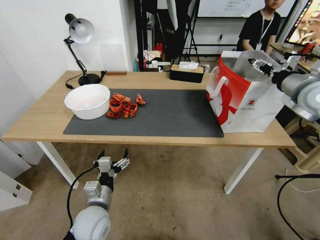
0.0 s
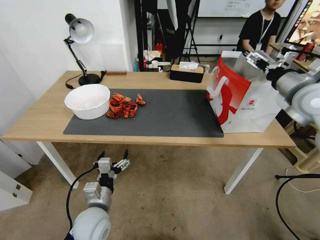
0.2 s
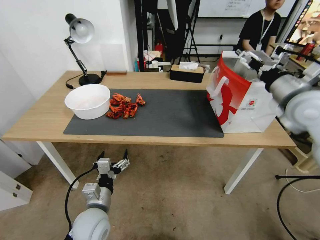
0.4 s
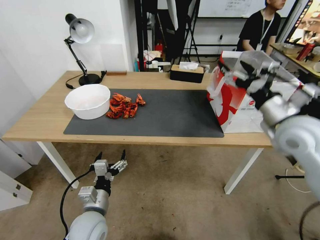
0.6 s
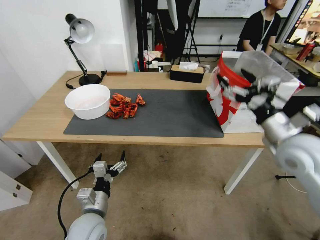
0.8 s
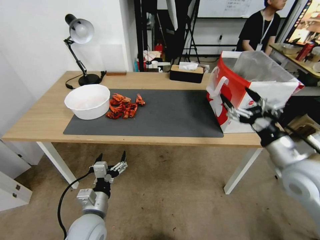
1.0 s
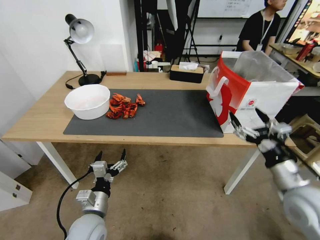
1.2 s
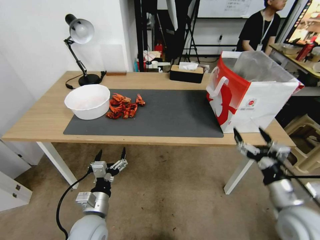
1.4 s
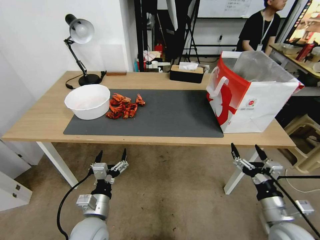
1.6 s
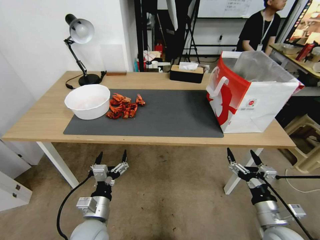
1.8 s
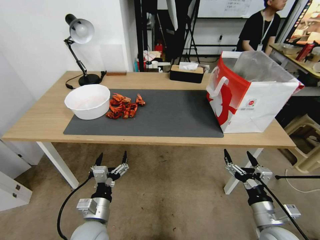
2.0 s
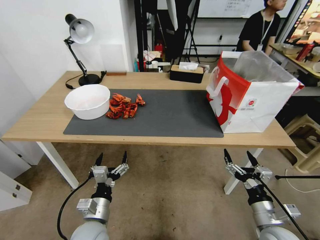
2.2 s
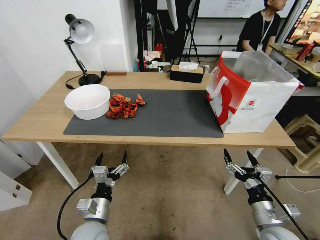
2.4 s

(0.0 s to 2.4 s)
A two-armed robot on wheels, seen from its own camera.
Task of the whole recording: Close the takeout container lid, then place the container into the takeout bag.
0.0 s - 1.2 s: The right gripper is displaced backward and downward by roughly 25 cm.
1.2 s - 2.4 s: The right gripper shifts about 15 cm downward and backward.

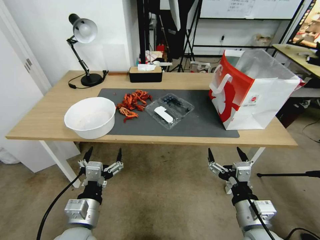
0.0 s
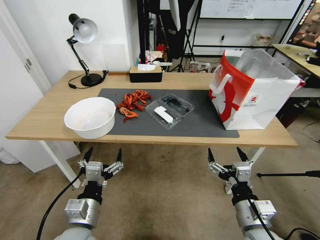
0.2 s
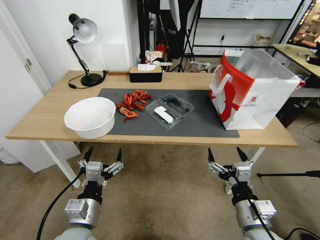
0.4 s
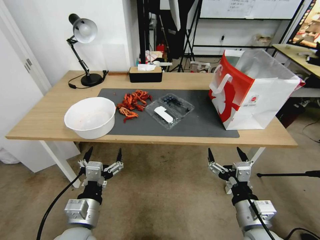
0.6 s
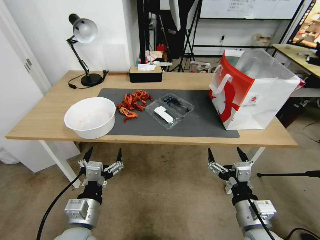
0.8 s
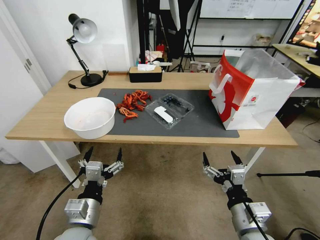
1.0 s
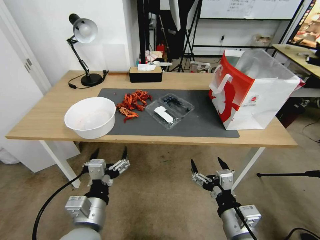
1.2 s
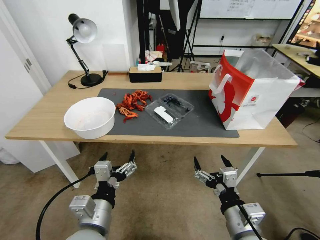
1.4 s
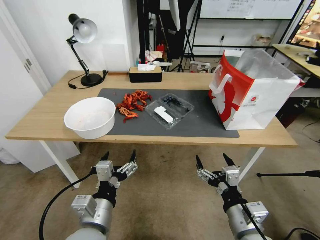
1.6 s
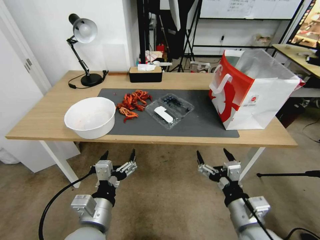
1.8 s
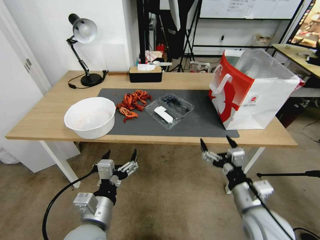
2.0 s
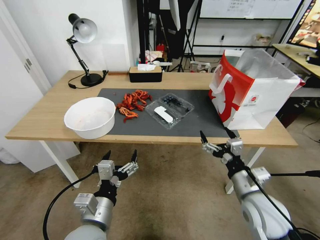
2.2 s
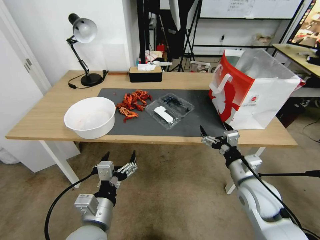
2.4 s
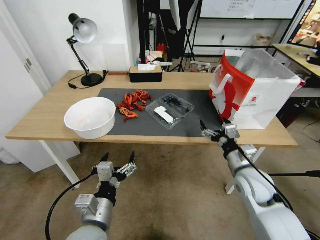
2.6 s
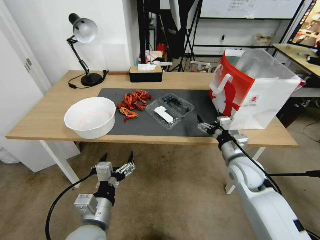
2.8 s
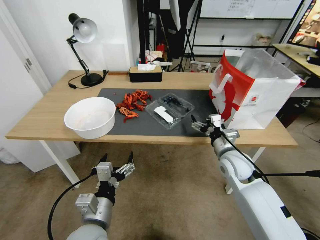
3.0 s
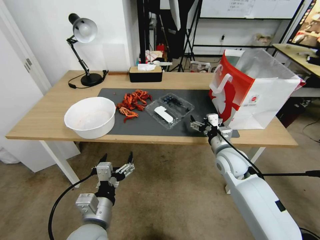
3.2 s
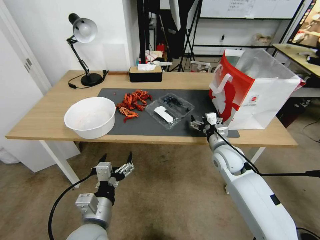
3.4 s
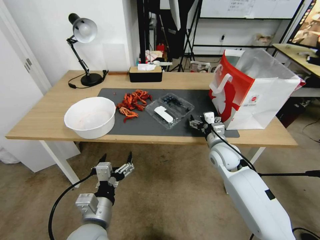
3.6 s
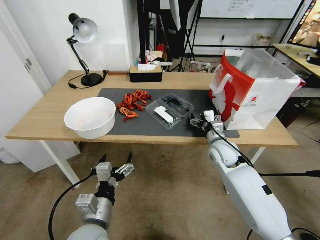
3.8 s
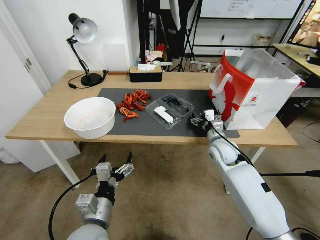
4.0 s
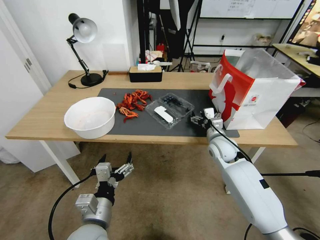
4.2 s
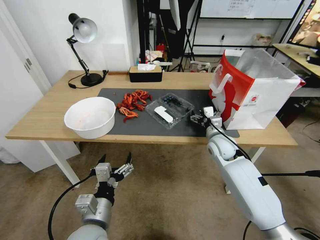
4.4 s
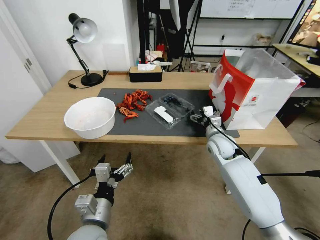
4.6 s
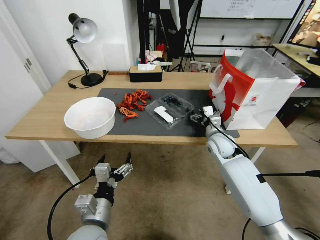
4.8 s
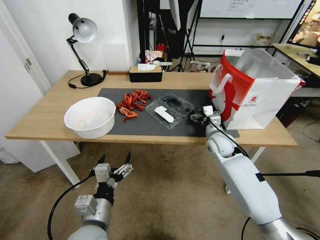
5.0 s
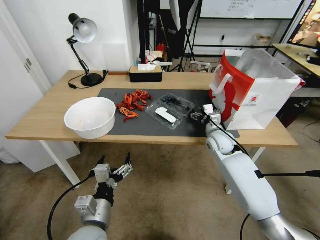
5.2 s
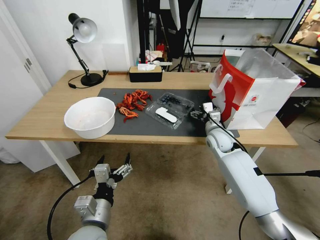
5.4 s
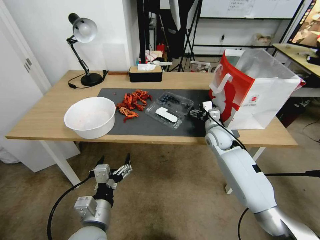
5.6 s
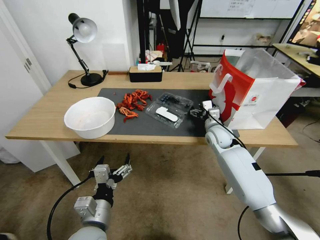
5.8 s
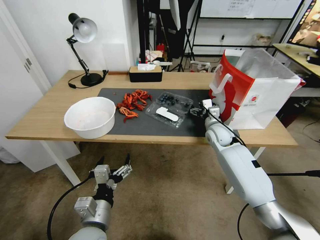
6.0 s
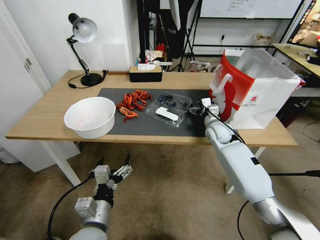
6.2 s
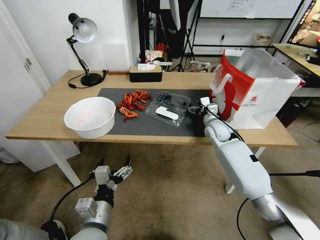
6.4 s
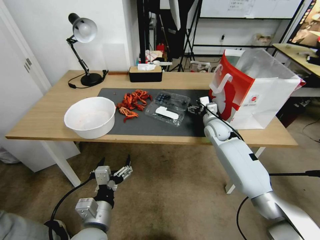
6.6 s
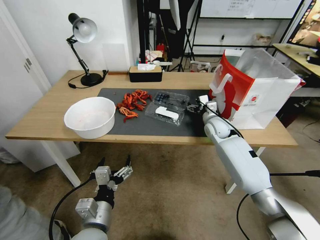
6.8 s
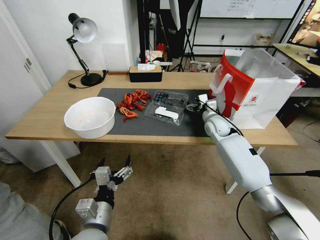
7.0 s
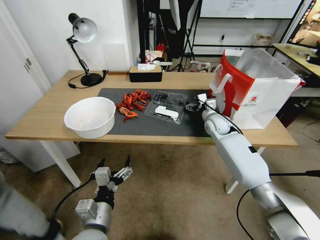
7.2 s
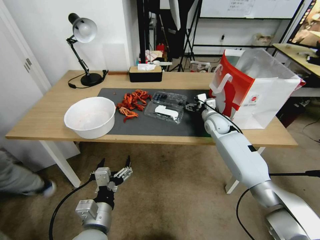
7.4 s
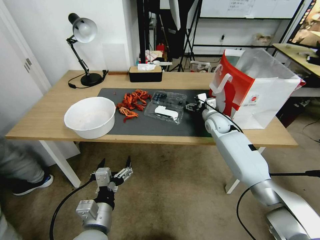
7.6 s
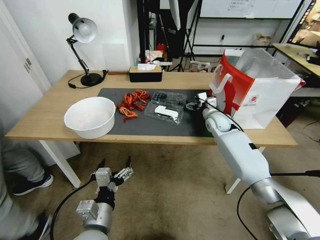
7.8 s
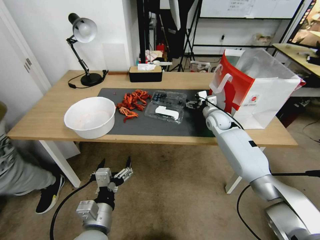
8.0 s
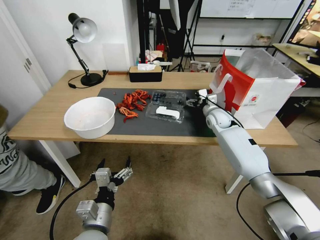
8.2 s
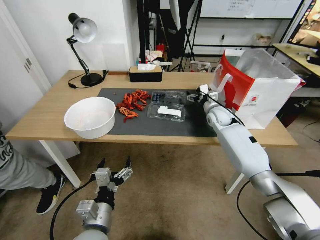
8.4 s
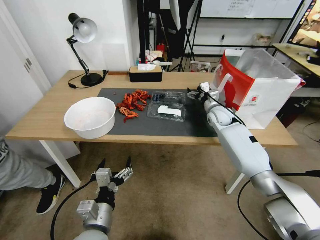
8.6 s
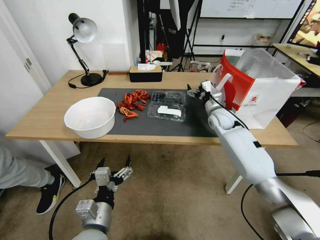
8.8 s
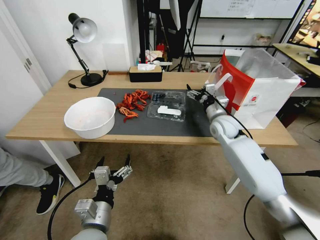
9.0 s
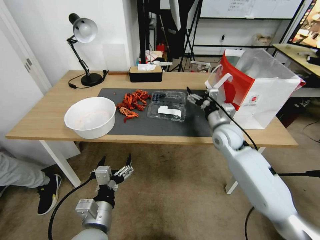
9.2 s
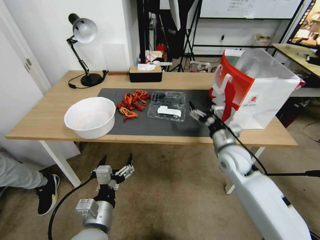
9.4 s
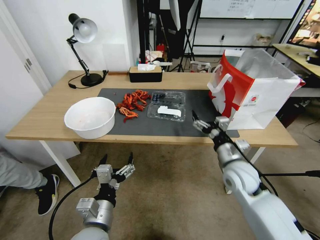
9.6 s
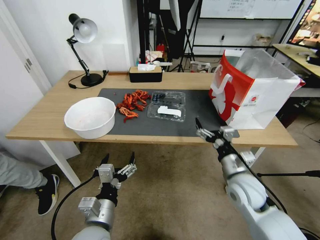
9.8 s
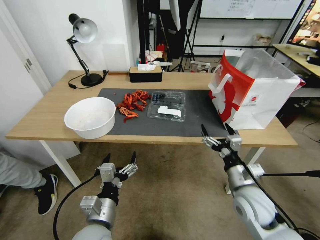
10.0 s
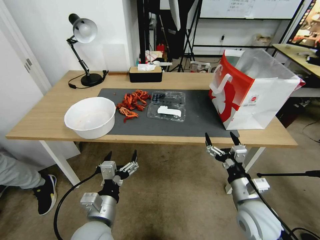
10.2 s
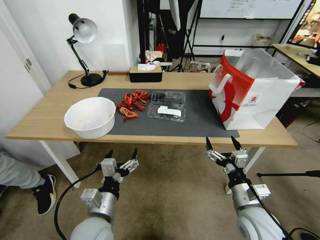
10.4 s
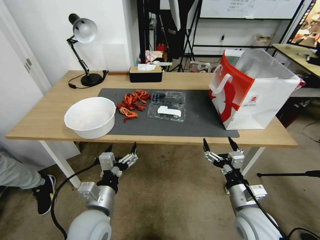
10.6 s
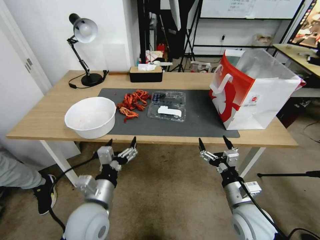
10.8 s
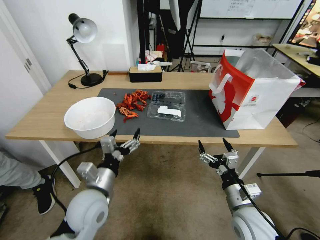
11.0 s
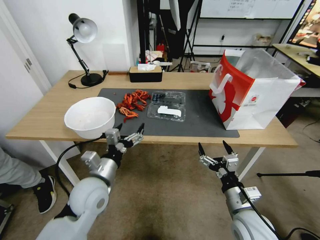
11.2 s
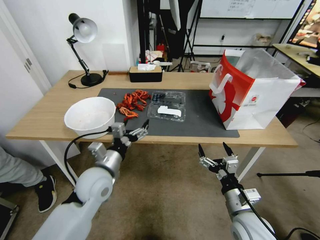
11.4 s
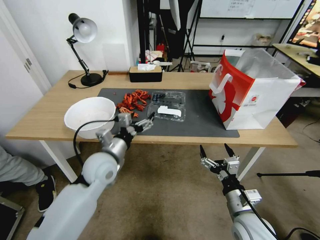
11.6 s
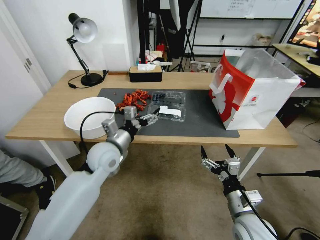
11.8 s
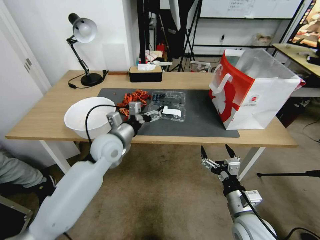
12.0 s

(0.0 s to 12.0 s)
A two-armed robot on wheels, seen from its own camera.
Task of the whole recording: Close the takeout container lid, then place the container into the takeout bag.
1.6 s - 3.0 s: The right gripper is displaced forward by some 20 cm.
3.0 s - 4.4 s: The right gripper shifts some 10 cm forward.
4.4 s - 6.0 s: The right gripper heads forward, covering approximately 5 cm.
6.0 s - 7.6 s: The right gripper changes place by about 5 cm.
7.6 s - 9.0 s: The right gripper moves approximately 5 cm.
9.0 s - 10.4 s: The right gripper travels backward by approximately 30 cm.
10.4 s - 12.0 s: The left gripper travels forward by about 20 cm.

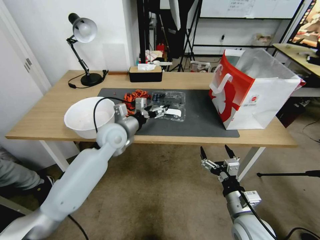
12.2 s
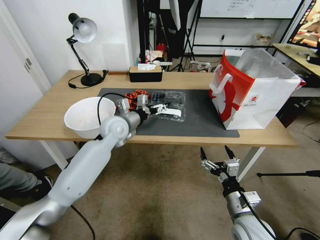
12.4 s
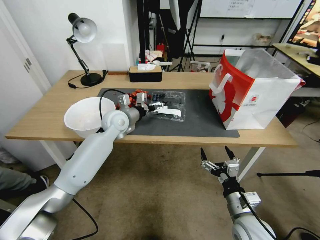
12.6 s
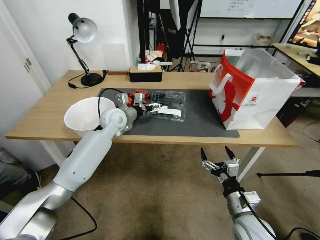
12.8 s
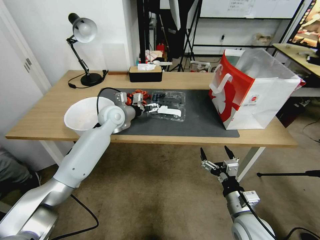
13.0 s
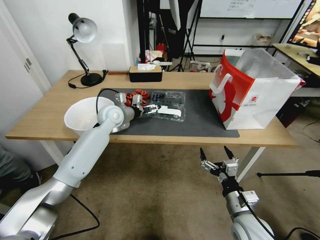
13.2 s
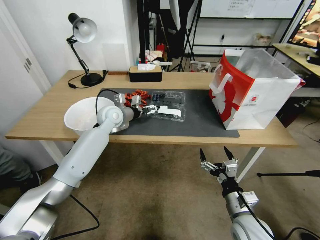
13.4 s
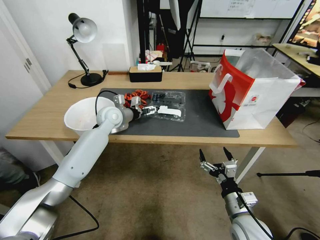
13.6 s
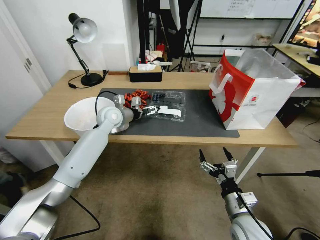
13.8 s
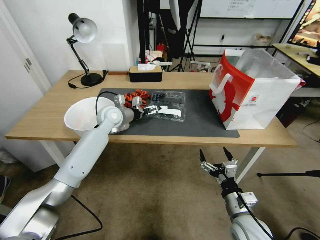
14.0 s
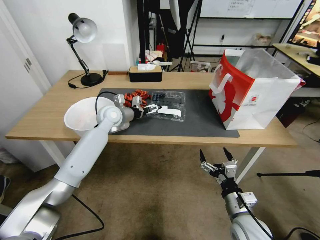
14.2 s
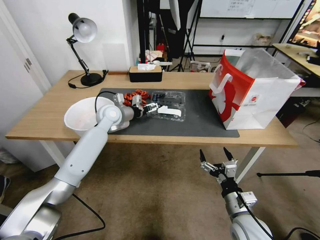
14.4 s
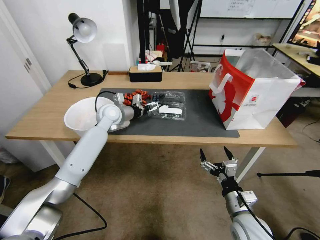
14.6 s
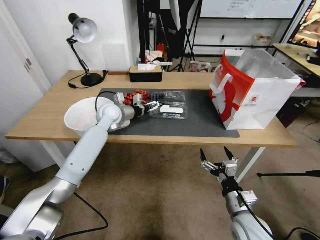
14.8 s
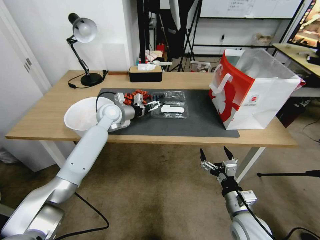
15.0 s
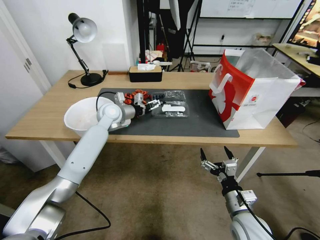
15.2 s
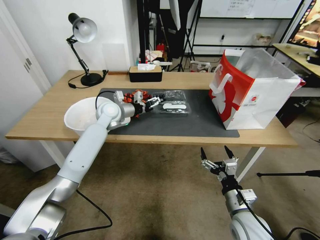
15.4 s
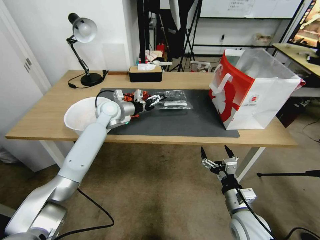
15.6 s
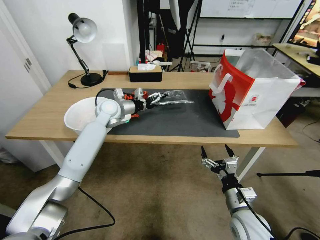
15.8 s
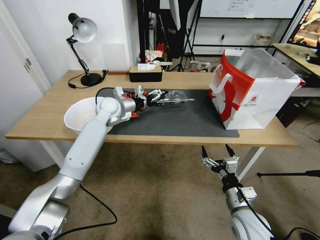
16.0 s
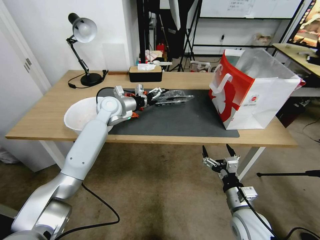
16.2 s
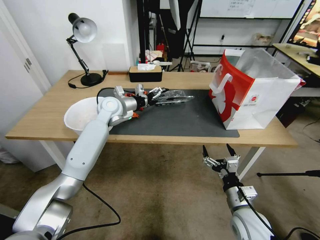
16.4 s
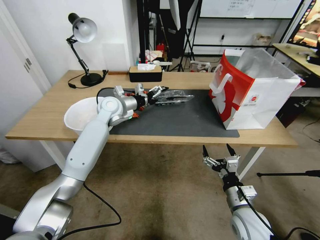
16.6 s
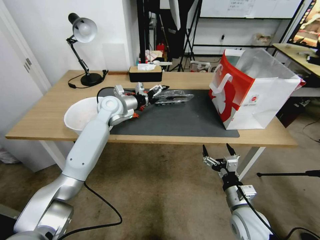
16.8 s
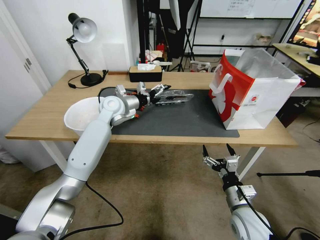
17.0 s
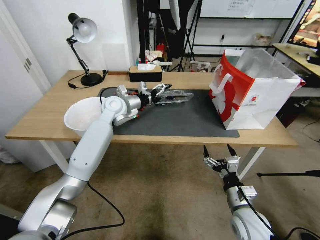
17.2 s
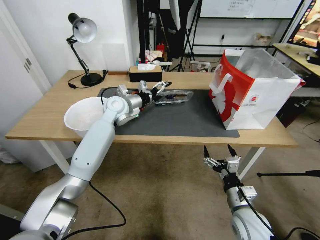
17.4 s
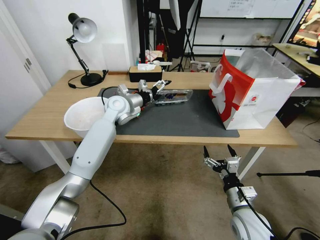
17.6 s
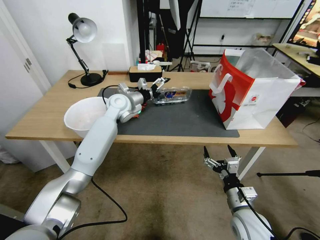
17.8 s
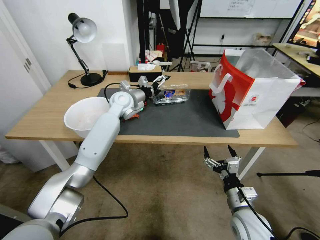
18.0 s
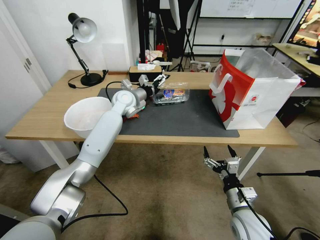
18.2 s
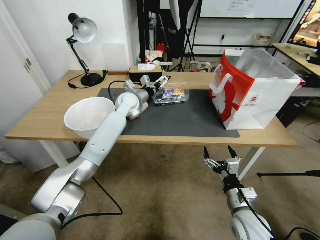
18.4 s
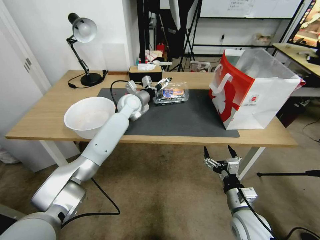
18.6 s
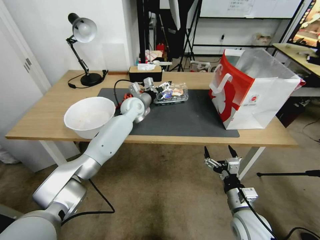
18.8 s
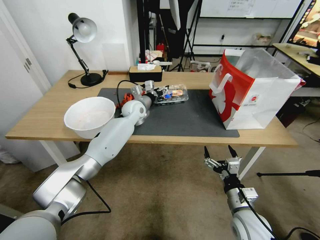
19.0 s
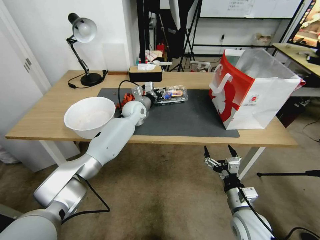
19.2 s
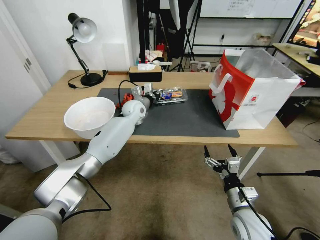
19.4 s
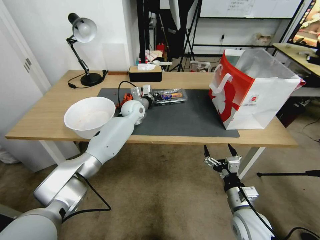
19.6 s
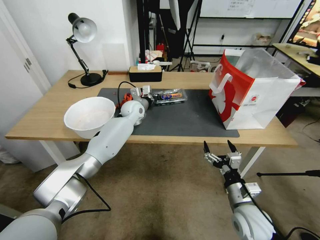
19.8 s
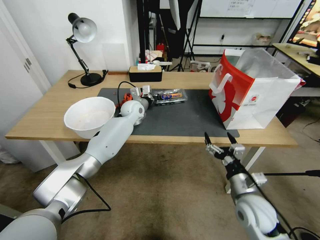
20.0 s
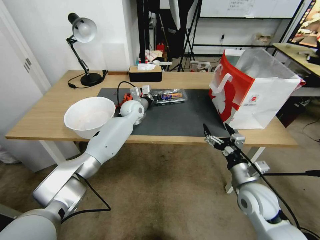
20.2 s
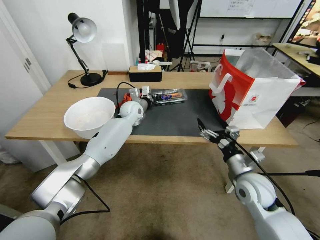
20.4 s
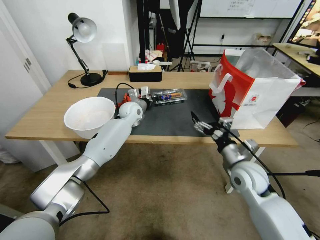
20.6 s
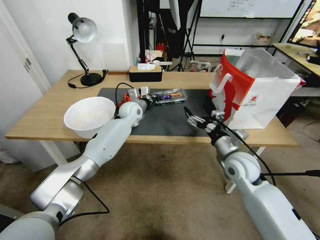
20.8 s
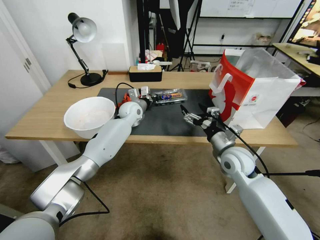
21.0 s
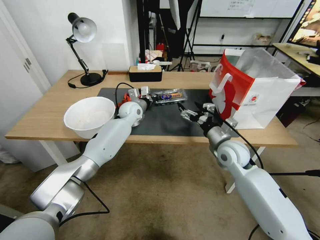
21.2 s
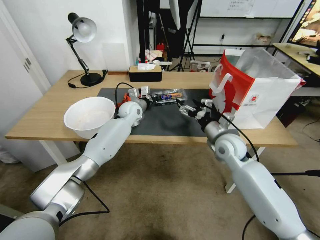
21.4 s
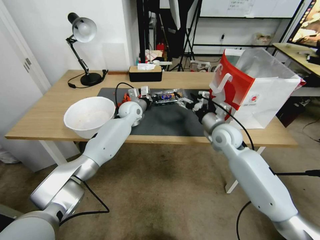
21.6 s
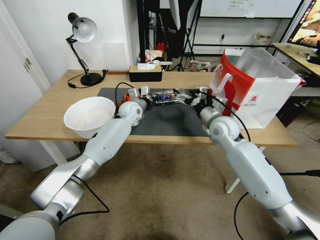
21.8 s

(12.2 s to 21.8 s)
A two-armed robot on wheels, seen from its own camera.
Task of the whole recording: Close the takeout container lid, then place the container into the takeout bag.
12.2 s - 13.8 s: The left gripper goes approximately 10 cm forward.
13.8 s - 15.4 s: The grippers move only a little.
15.4 s - 17.0 s: The grippers make only small movements.
17.0 s - 18.6 s: The left gripper shifts some 5 cm to the right.
18.6 s - 20.2 s: The left gripper closes up, while the right gripper goes approximately 10 cm upward and forward.
20.2 s - 21.8 s: The right gripper is displaced forward and upward by about 25 cm.
